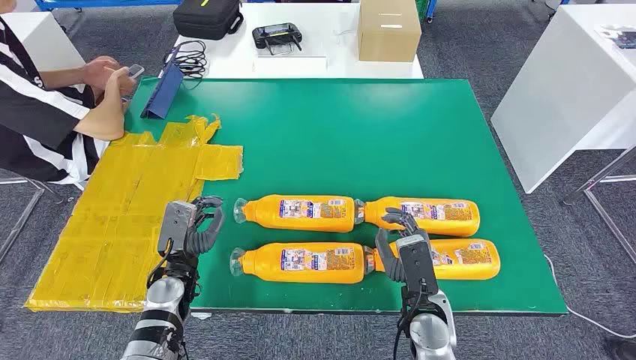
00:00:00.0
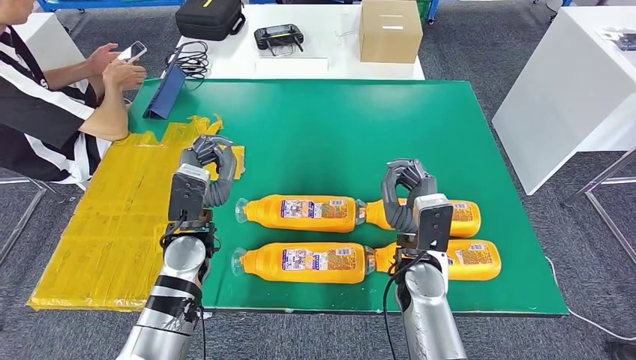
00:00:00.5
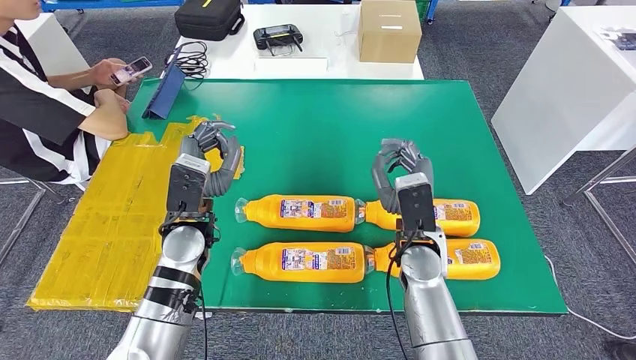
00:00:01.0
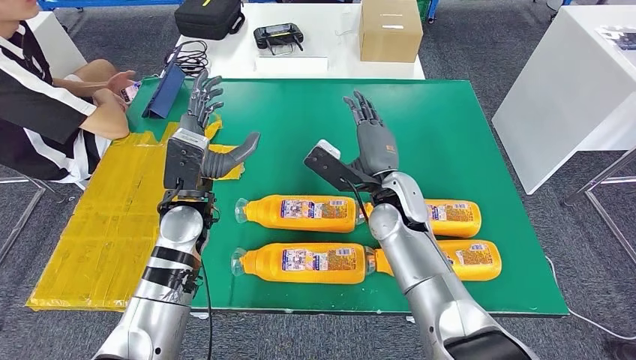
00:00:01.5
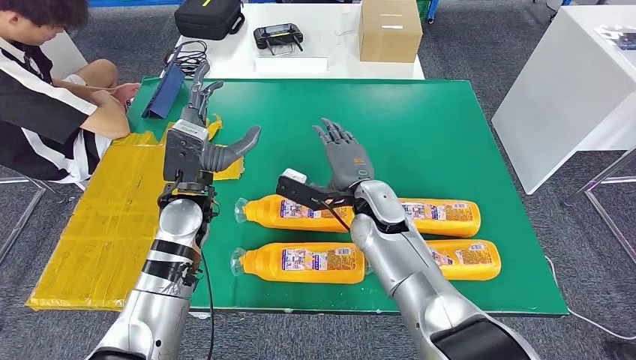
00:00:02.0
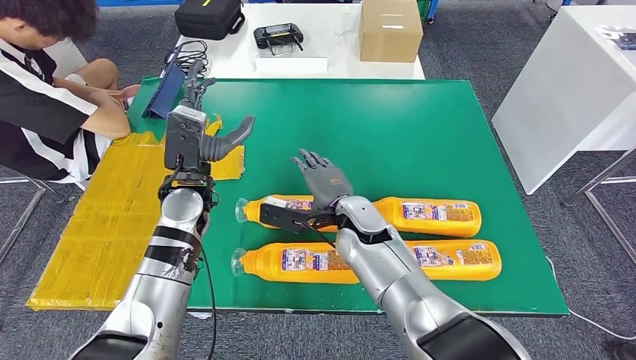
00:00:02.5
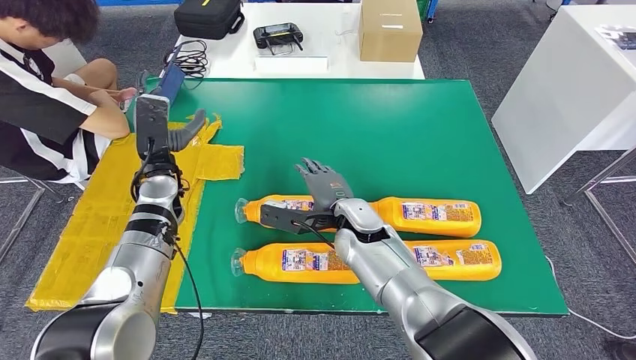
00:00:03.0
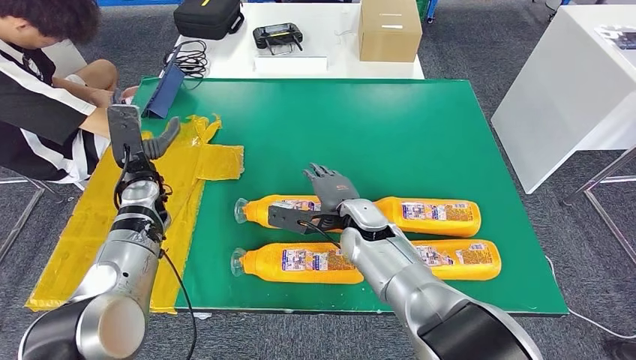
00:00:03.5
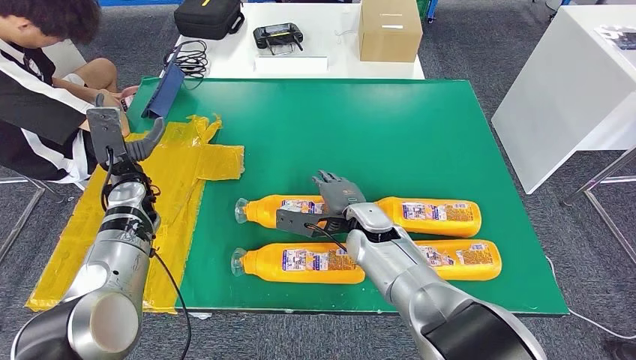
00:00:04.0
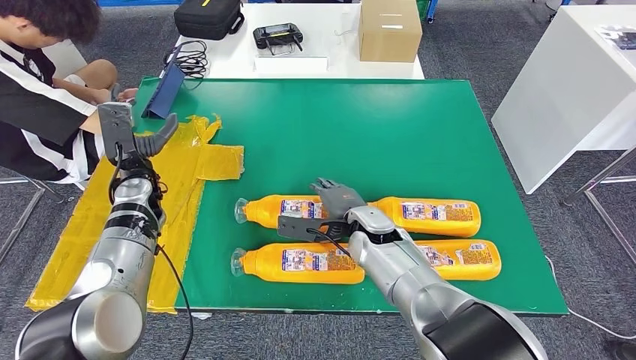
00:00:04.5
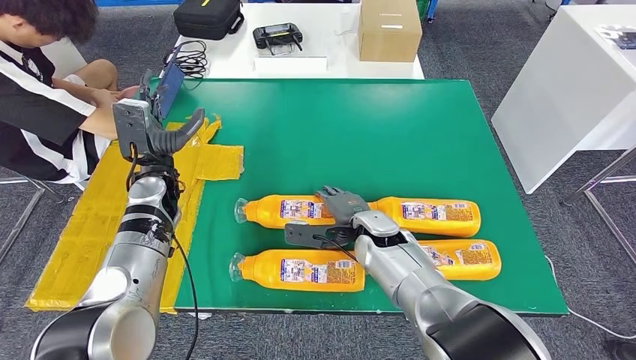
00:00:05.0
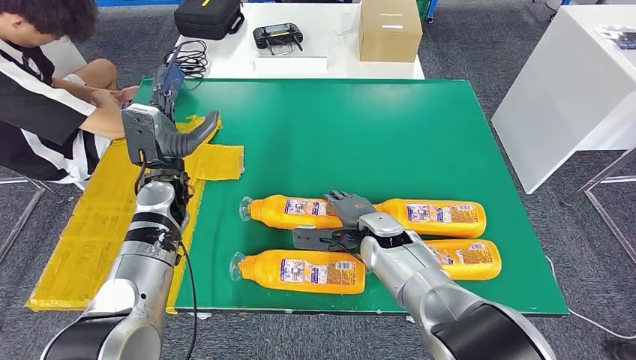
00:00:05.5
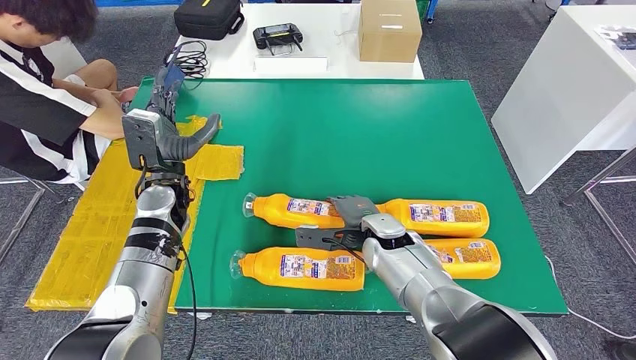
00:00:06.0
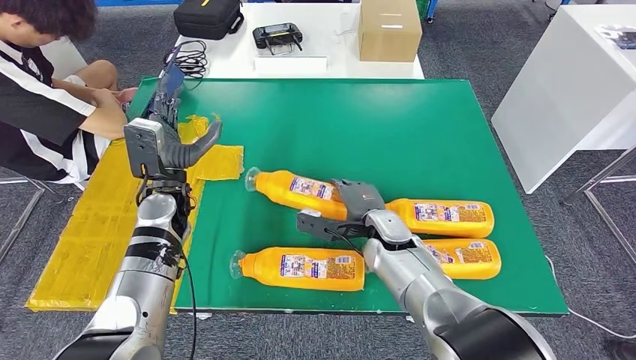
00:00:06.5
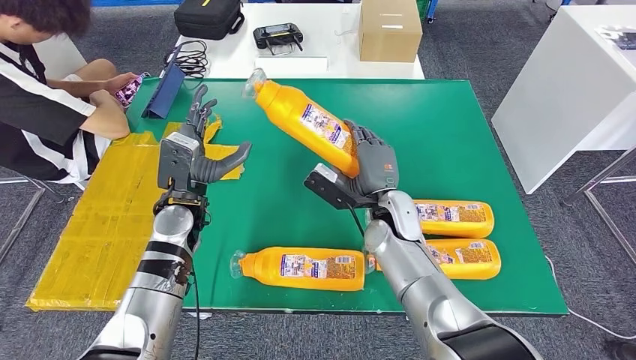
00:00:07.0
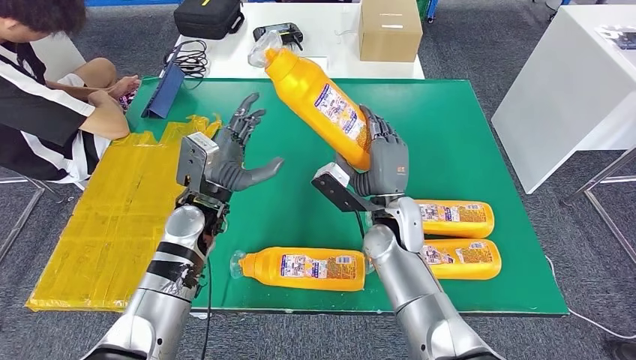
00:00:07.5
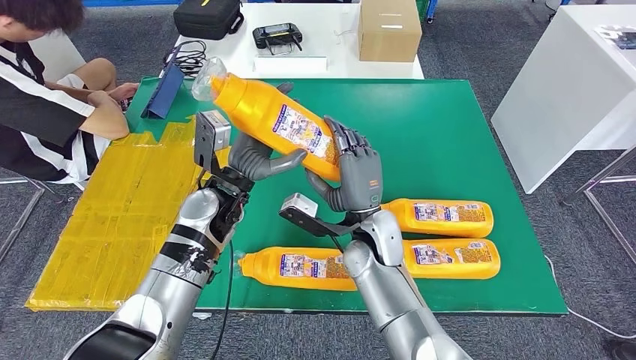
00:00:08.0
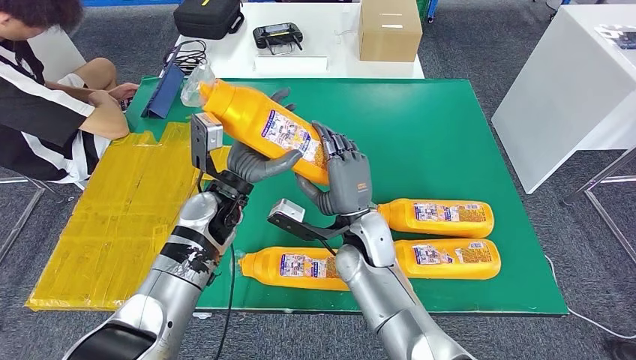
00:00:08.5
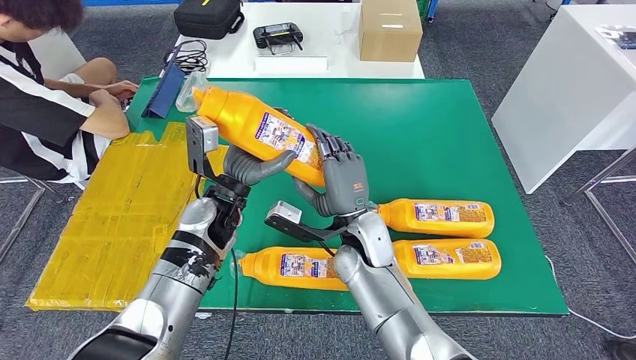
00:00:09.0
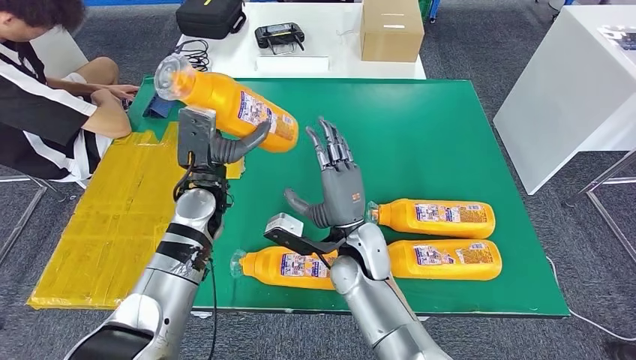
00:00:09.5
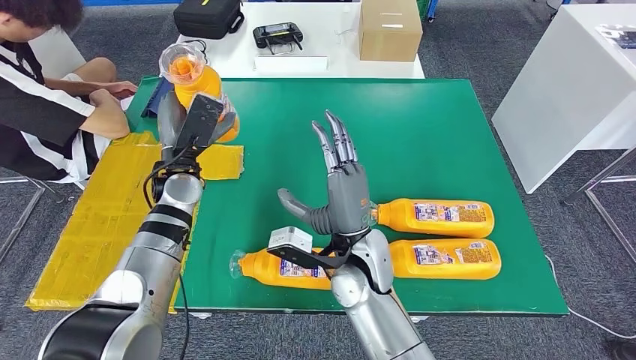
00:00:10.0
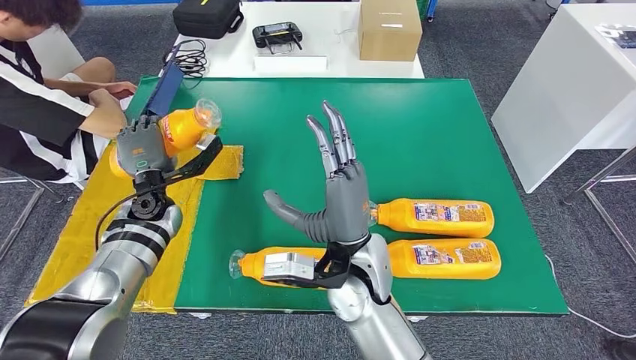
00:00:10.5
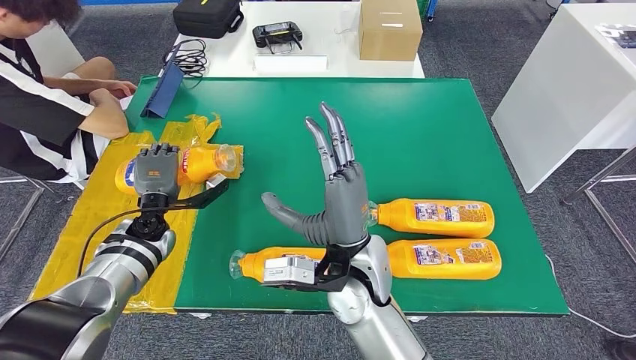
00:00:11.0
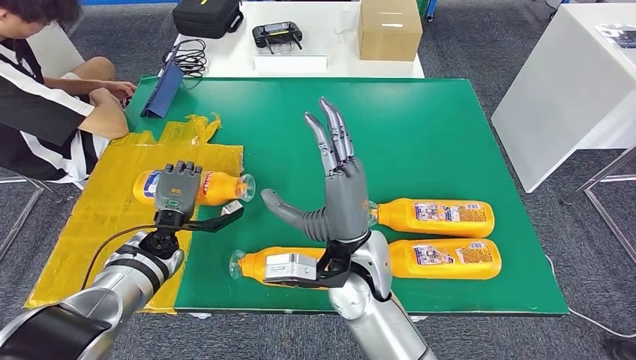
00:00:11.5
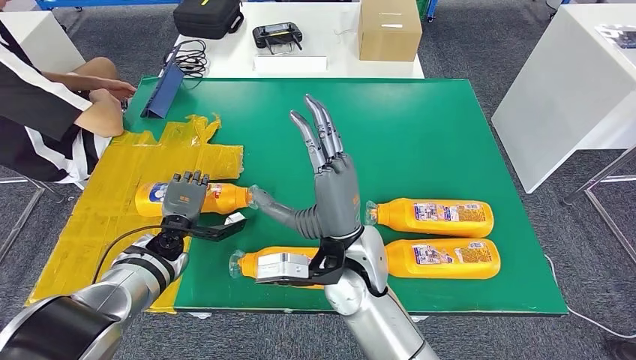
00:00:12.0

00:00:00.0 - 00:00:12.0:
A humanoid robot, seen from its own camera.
Step, 00:00:00.0 - 00:00:08.5: Take the bottle from the table.
00:00:04.0 - 00:00:06.0: The left hand shifts approximately 10 cm to the right.

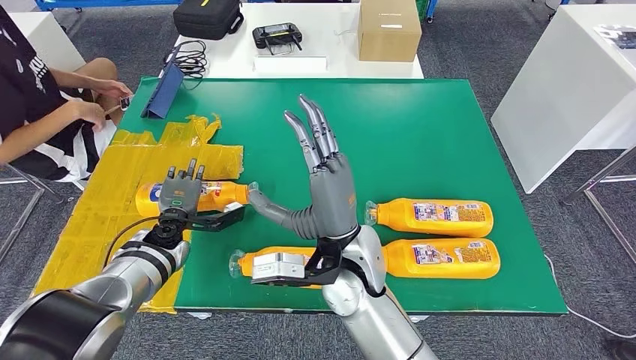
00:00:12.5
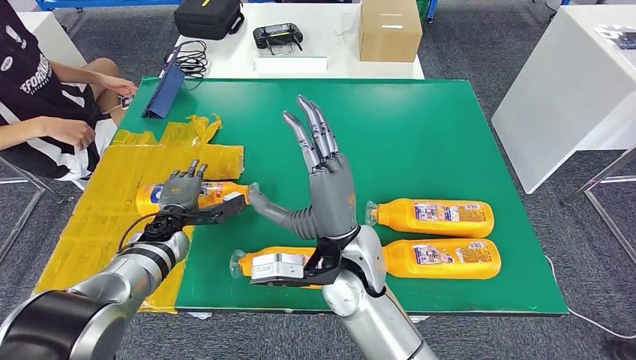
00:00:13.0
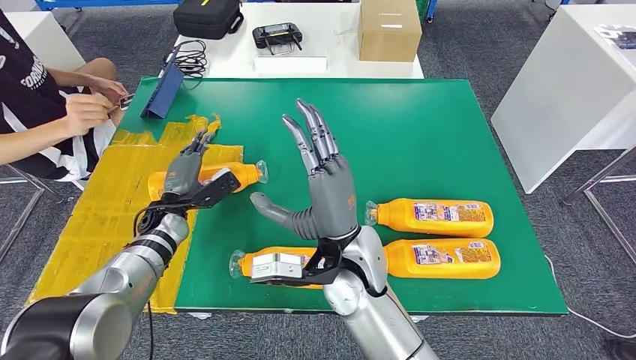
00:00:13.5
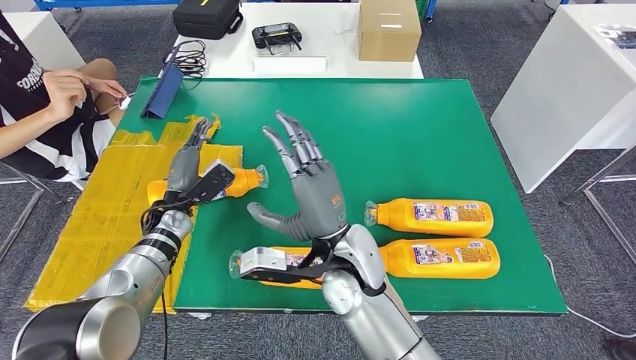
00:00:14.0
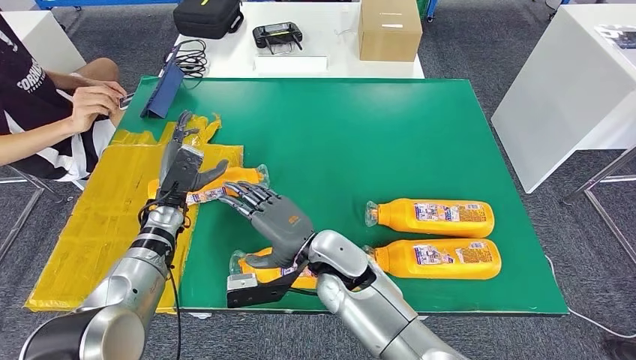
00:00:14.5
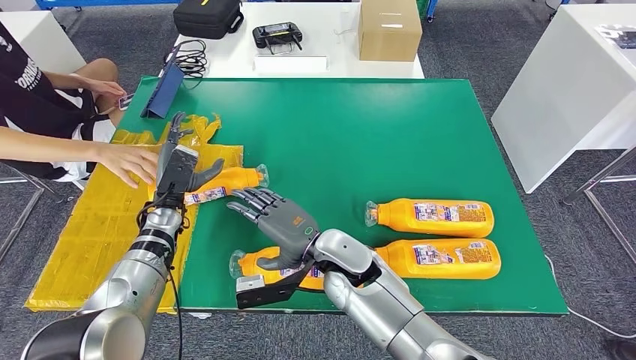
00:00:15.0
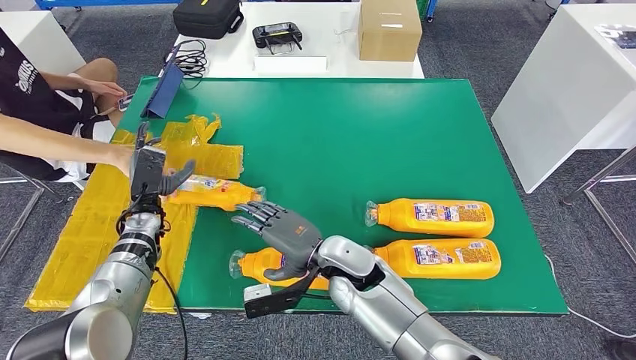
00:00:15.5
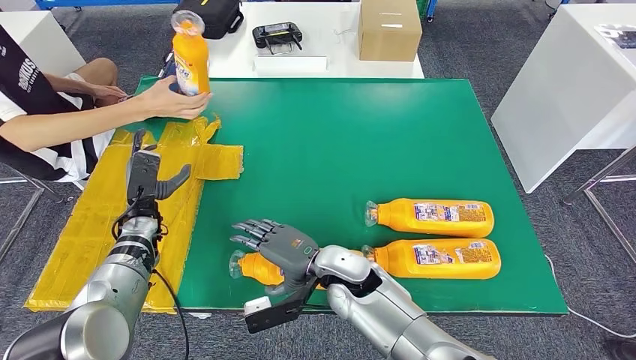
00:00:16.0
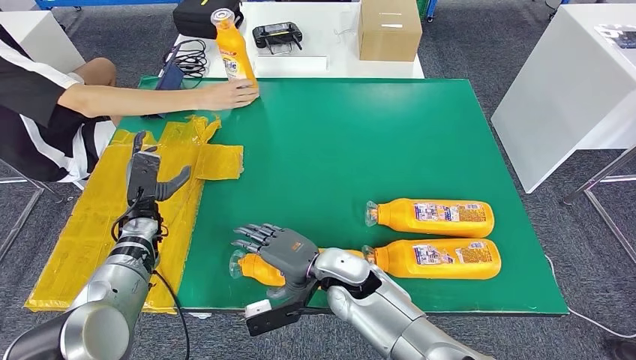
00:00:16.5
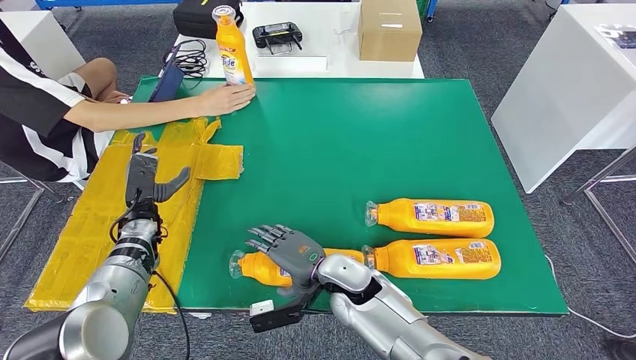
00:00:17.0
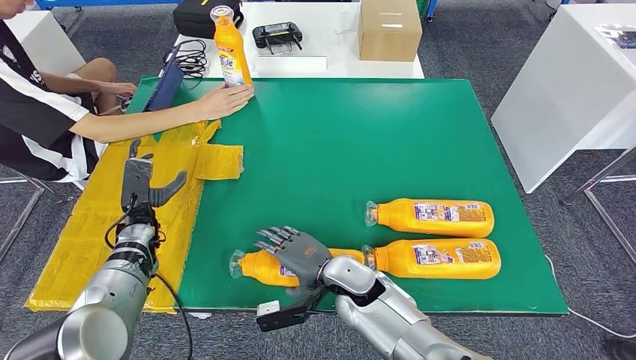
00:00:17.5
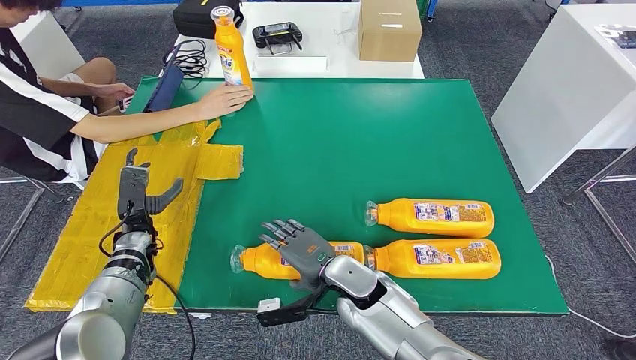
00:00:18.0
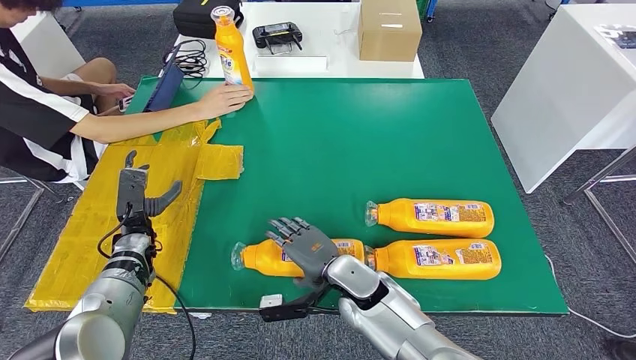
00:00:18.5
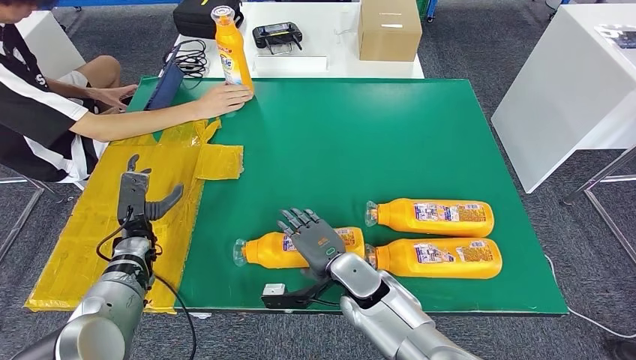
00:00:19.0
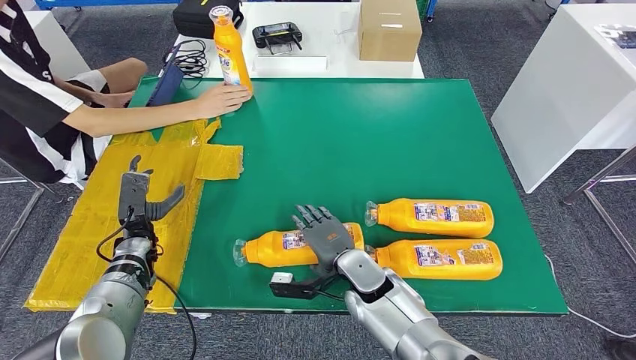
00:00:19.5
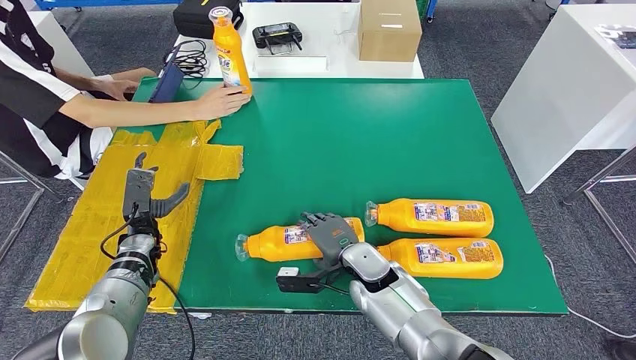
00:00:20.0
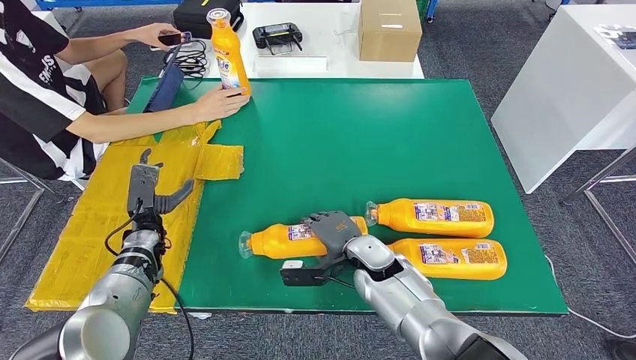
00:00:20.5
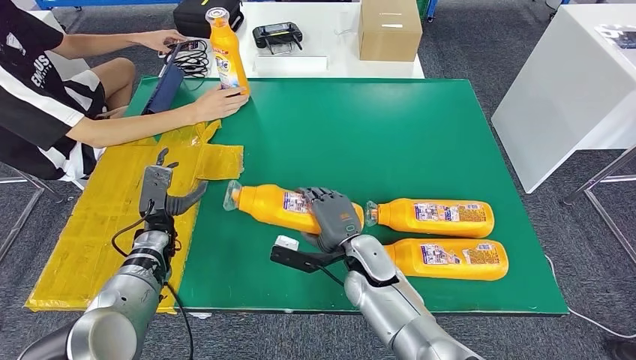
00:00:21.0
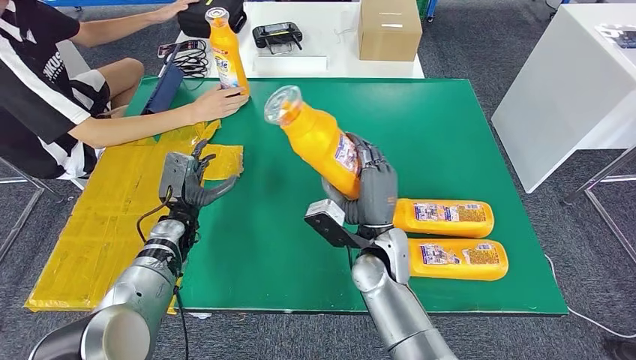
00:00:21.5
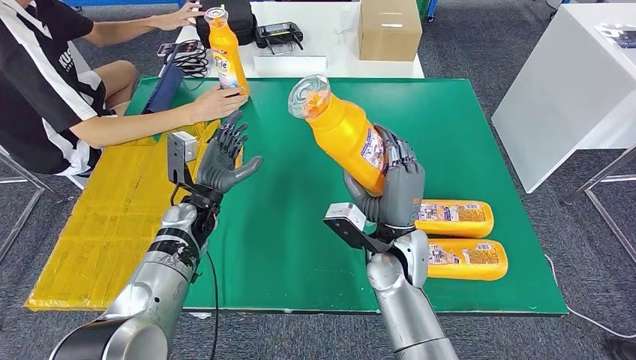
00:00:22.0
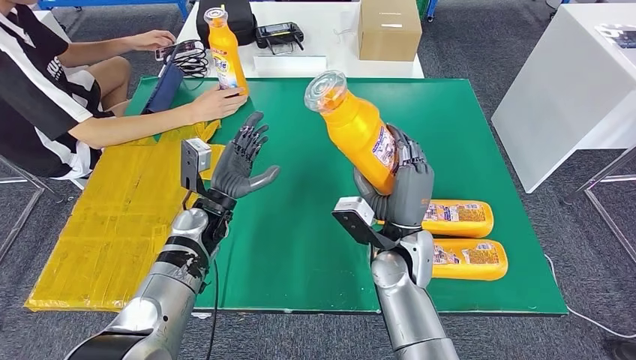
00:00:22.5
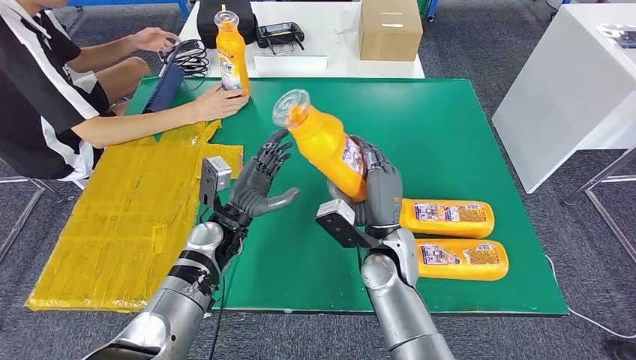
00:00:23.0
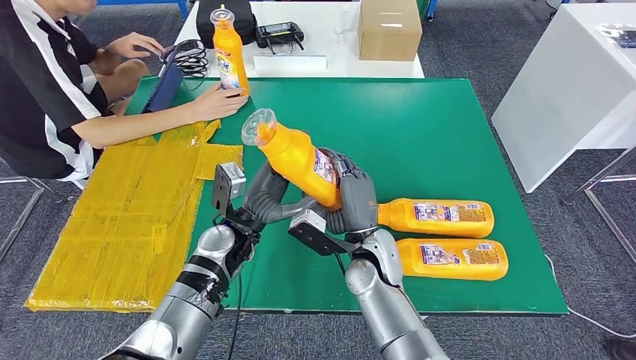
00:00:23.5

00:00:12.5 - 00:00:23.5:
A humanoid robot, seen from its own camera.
Step, 00:00:13.5 - 00:00:23.0: Pick up the bottle from the table.
00:00:12.5 - 00:00:14.5: The right hand moves some 5 cm.
00:00:14.5 - 00:00:16.0: The left hand shifts some 5 cm to the left. The right hand moves downward, roughly 5 cm.
00:00:16.0 - 00:00:18.0: The hands stay close to where they were, moving slightly.
00:00:18.0 - 00:00:20.0: The hands make only small movements.
